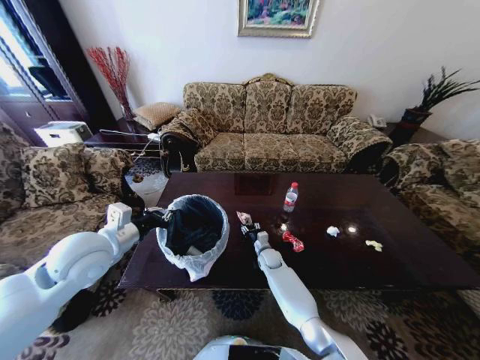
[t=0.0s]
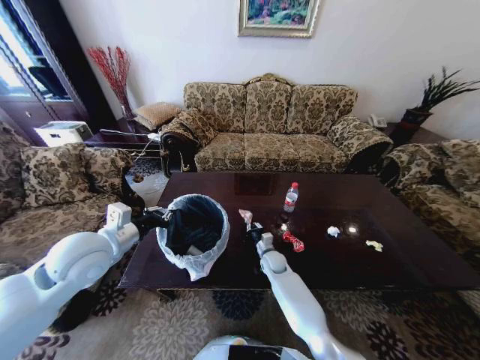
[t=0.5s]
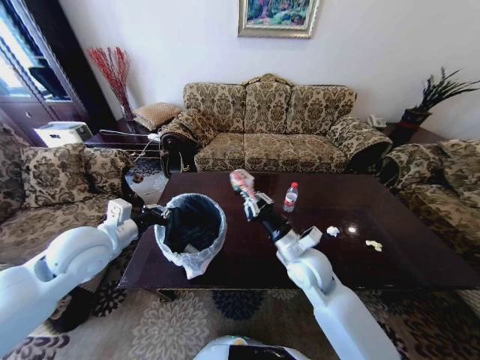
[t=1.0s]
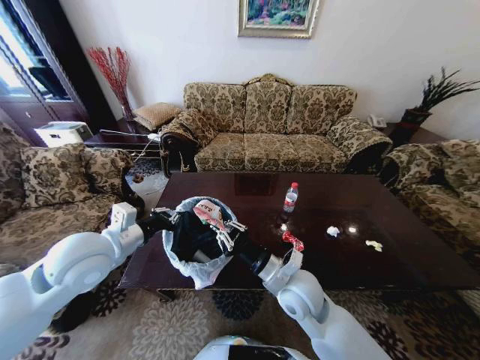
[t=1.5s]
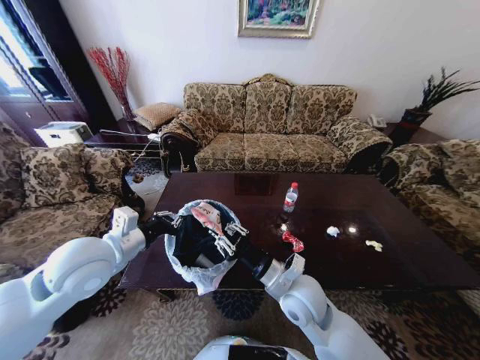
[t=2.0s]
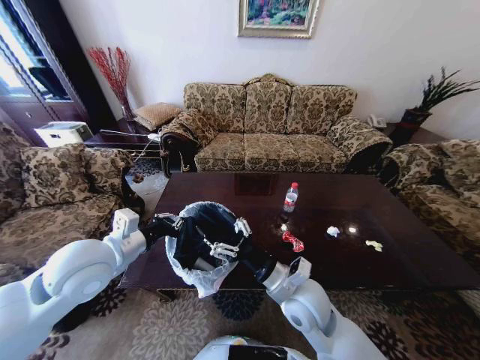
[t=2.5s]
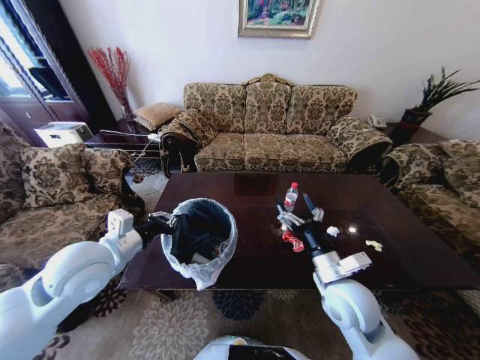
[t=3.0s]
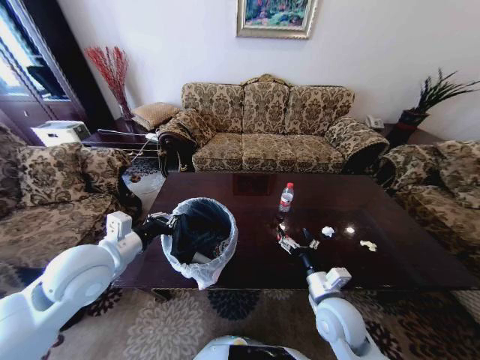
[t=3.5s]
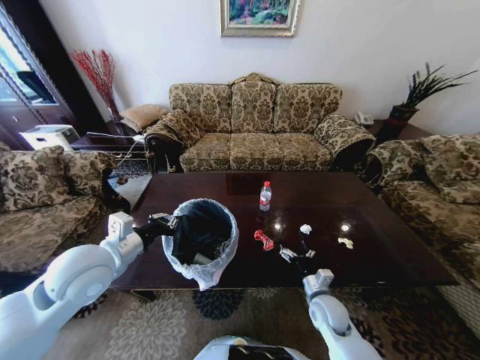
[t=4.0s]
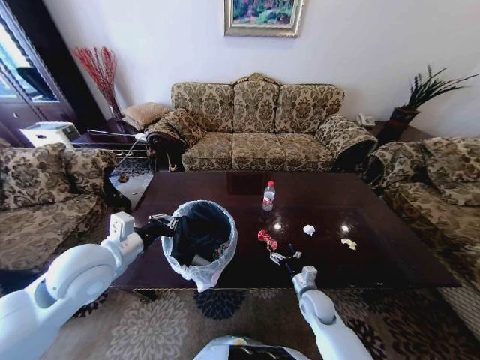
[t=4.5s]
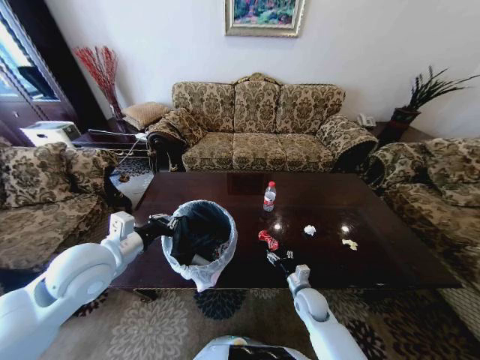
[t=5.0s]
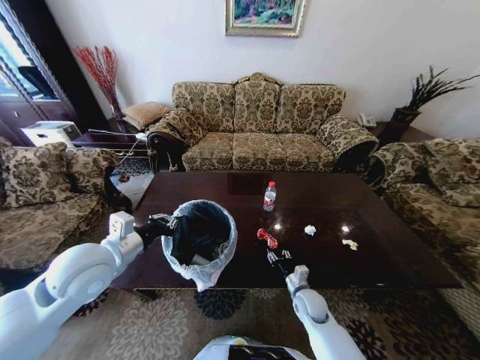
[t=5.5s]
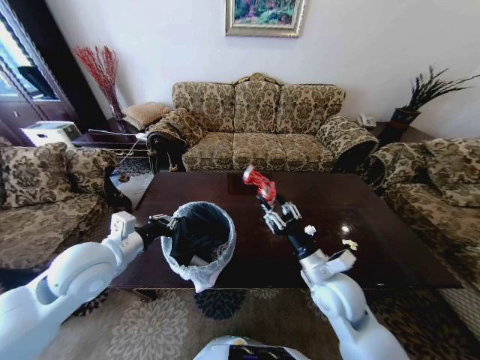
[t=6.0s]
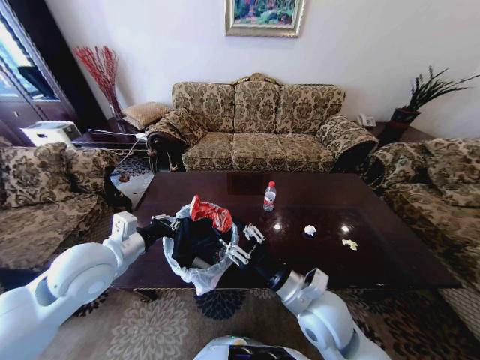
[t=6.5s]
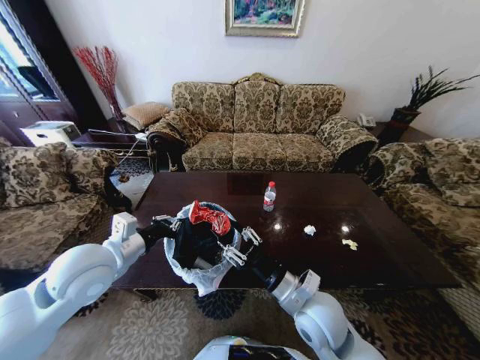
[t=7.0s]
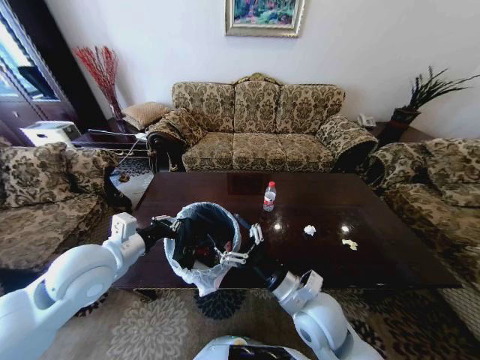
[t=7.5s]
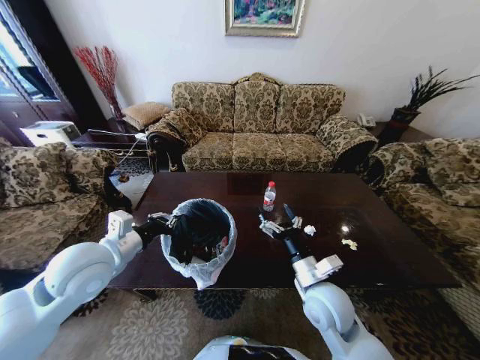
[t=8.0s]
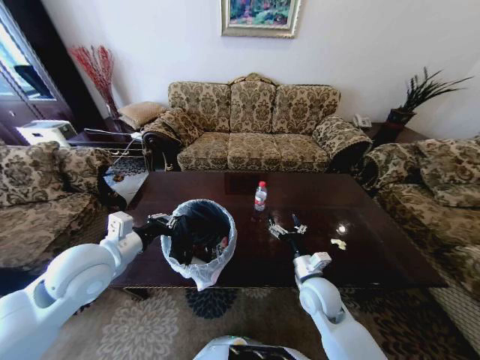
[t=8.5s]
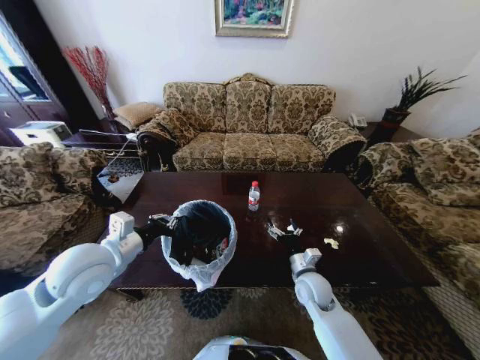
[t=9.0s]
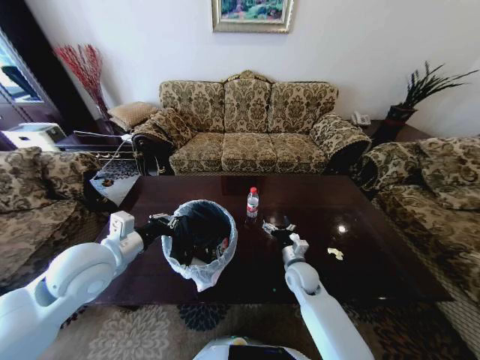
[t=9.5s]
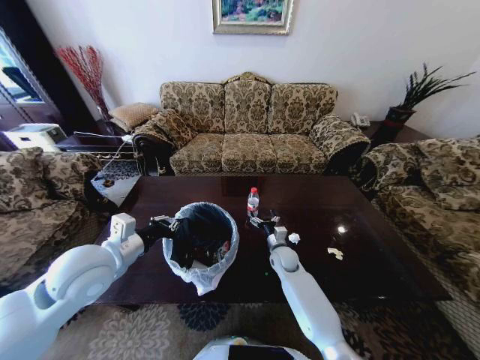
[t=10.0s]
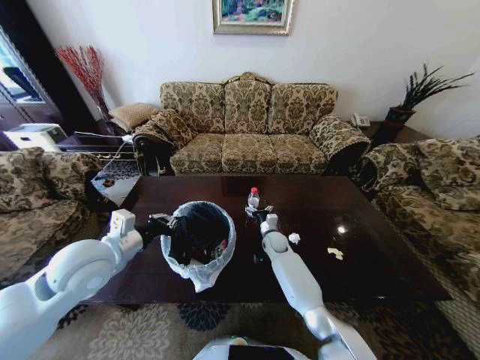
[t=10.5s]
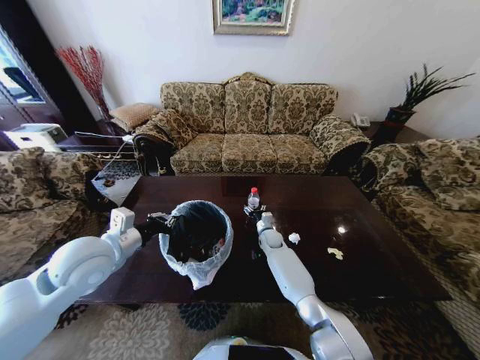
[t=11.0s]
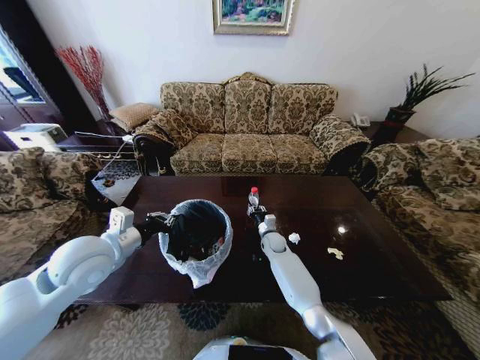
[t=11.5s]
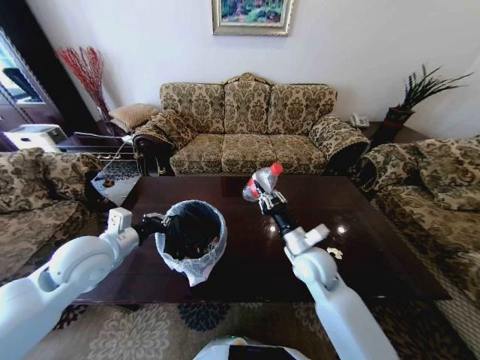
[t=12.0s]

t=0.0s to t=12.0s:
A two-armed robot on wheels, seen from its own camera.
Task of the whole recording: Move to the front of the table and place the trash on the table into the trash bin.
t=0.0s to t=2.0s: The right gripper travels upward and backward by about 30 cm.
t=2.0s to t=4.0s: The right gripper is displaced downward and to the right by roughly 20 cm, and opens.
t=4.0s to t=6.0s: The right gripper moves upward, about 15 cm, and closes its fingers.
t=6.0s to t=8.0s: The right gripper opens its fingers.
t=8.0s to t=10.0s: The right gripper is displaced forward and downward by some 25 cm.
t=10.0s to t=12.0s: The right gripper shifts roughly 20 cm upward and backward, and closes its fingers.

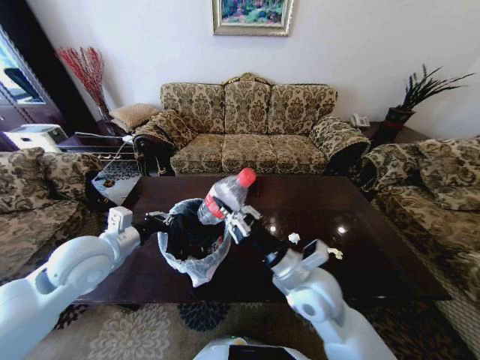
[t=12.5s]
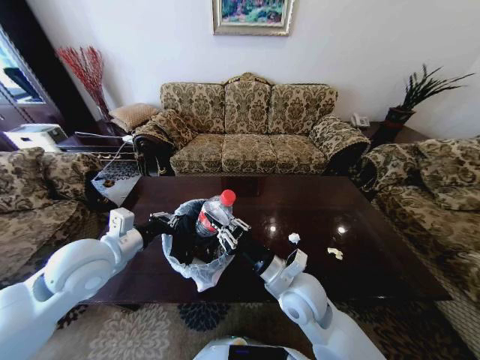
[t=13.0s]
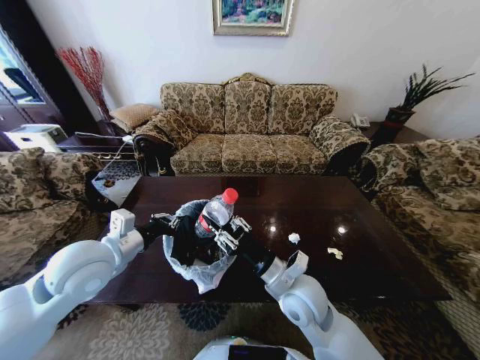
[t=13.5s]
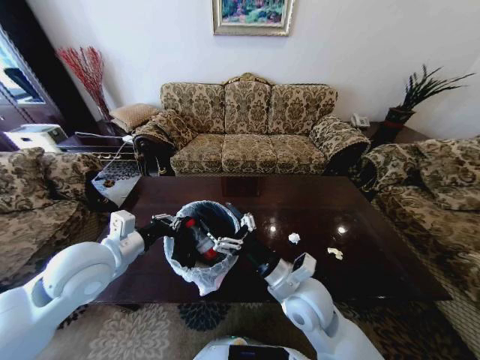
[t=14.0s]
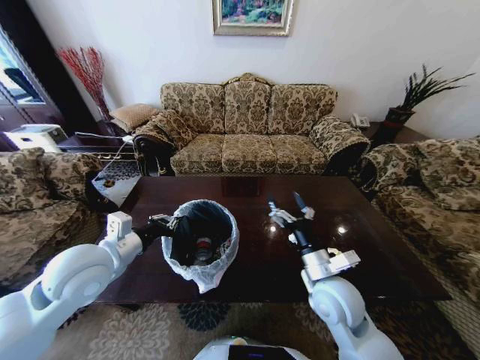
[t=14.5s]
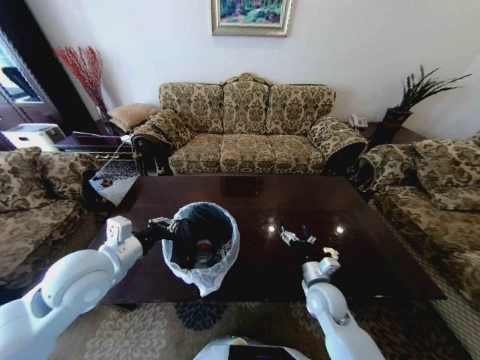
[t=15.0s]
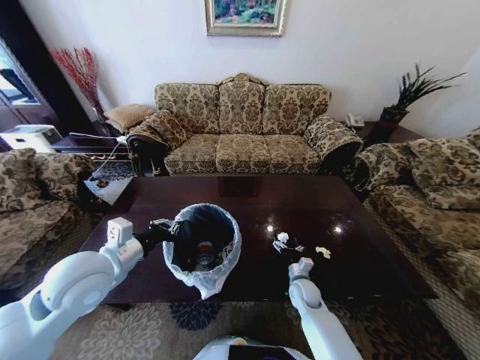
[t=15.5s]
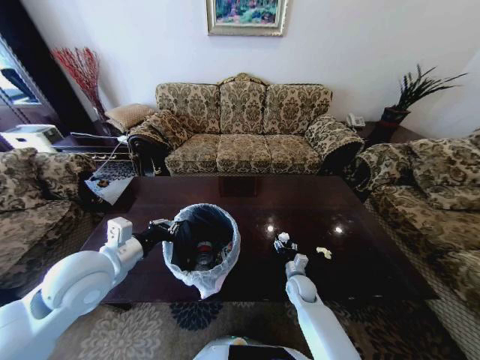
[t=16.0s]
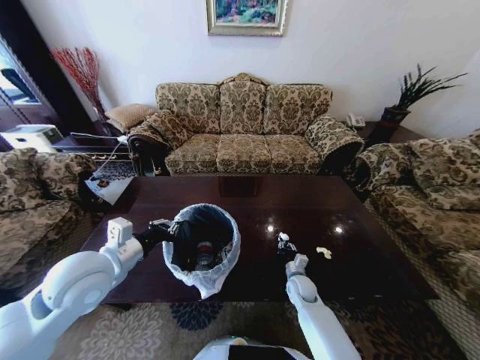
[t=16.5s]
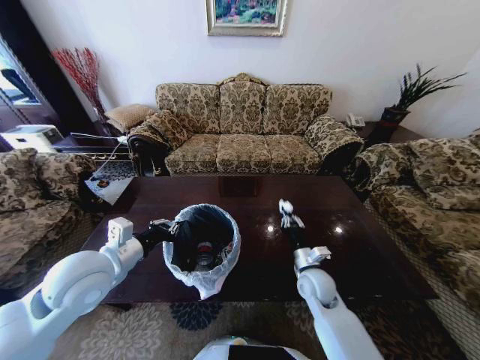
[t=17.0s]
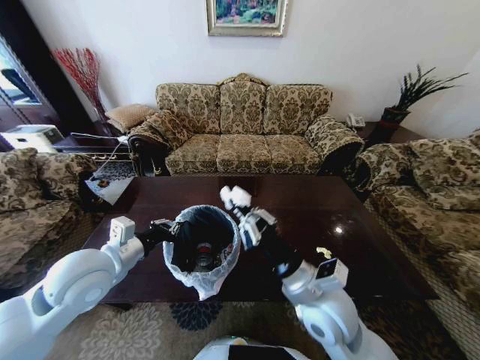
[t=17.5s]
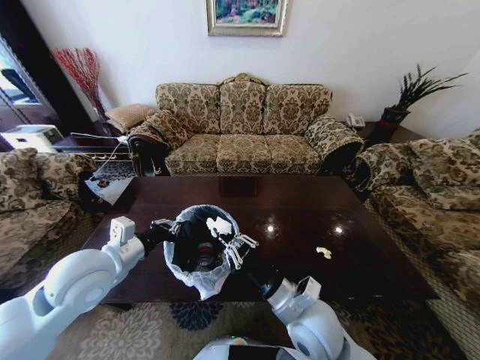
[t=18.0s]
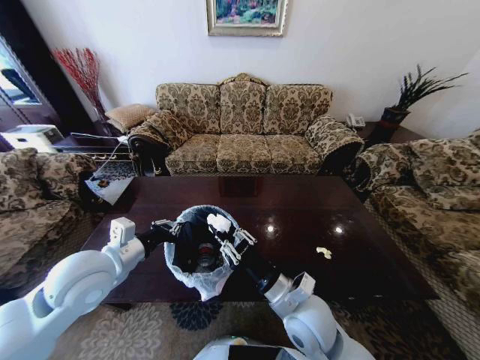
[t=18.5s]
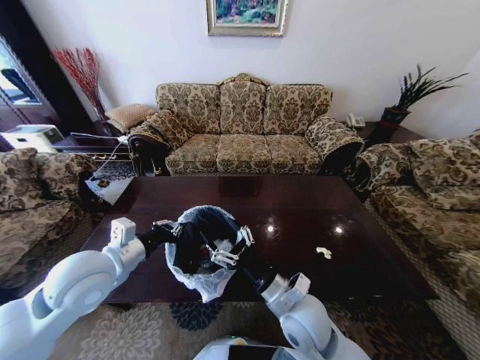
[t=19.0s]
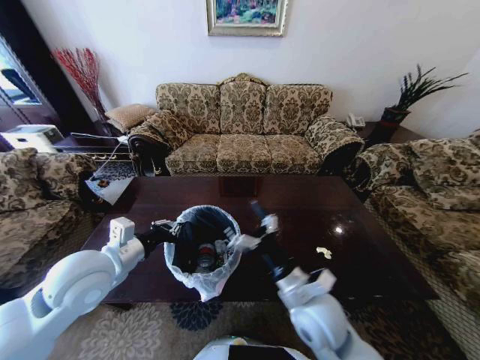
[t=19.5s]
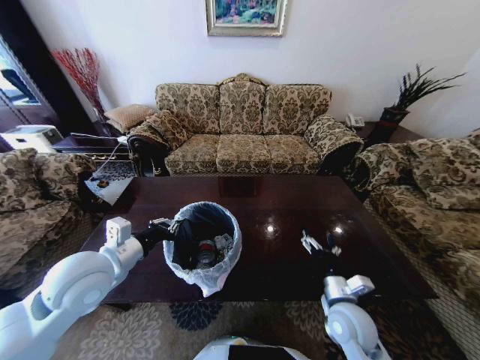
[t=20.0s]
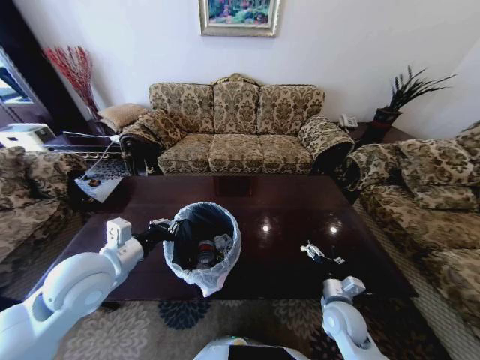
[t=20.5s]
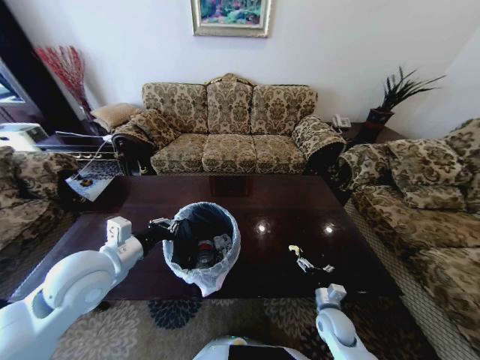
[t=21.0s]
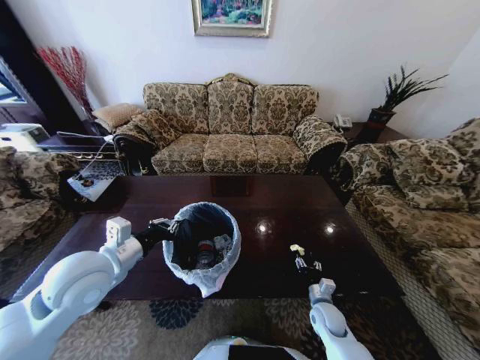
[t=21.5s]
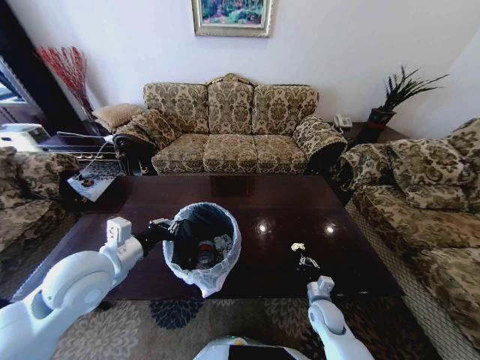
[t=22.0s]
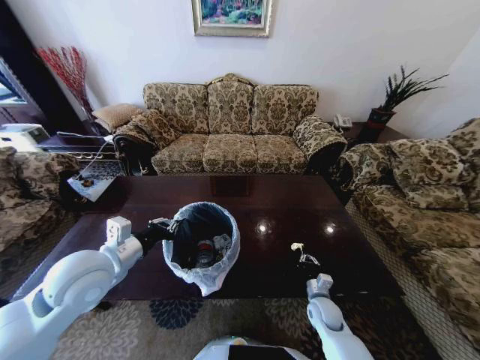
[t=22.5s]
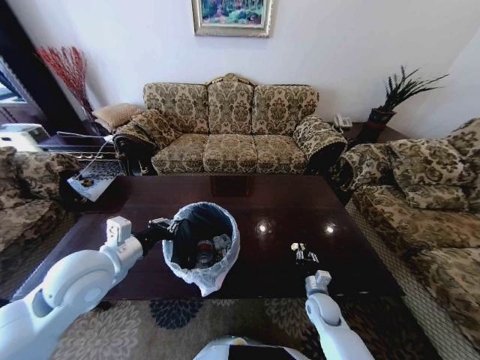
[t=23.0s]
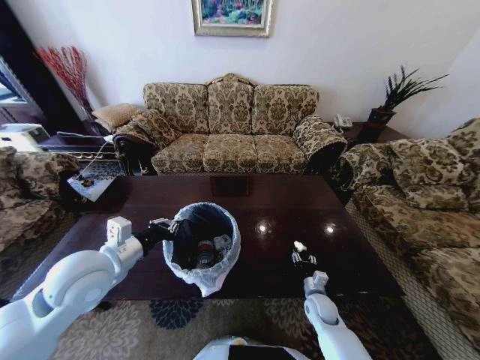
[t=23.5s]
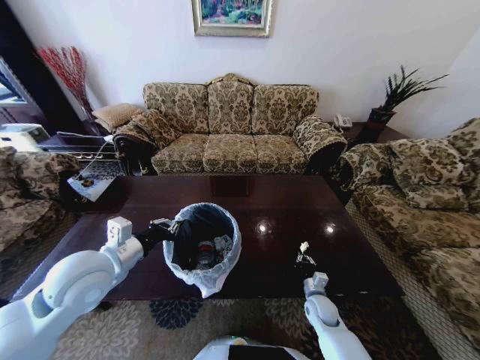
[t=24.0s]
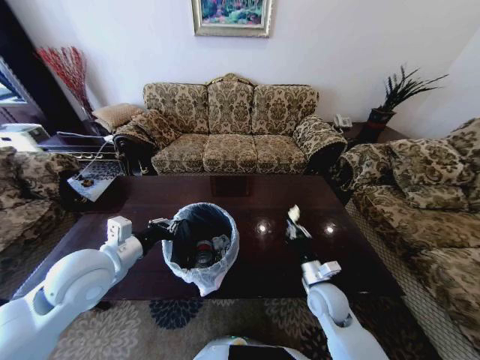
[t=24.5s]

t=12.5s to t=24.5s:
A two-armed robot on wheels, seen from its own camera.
Task of the whole recording: Move to the front of the table and place the trash on the table into the trash bin.
t=12.5s to t=14.5s: The right gripper heads to the right, covering roughly 5 cm, and opens up.
t=14.5s to t=16.5s: The right gripper shifts roughly 25 cm downward, and closes its fingers.
t=16.5s to t=18.5s: The right gripper heads upward and backward, covering some 25 cm.
t=18.5s to t=20.5s: The right gripper is displaced to the right and downward by approximately 20 cm, and opens up.
t=20.5s to t=22.5s: The right gripper travels downward by roughly 10 cm, and closes its fingers.
t=22.5s to t=24.5s: The right gripper shifts approximately 15 cm upward, and opens and closes again.

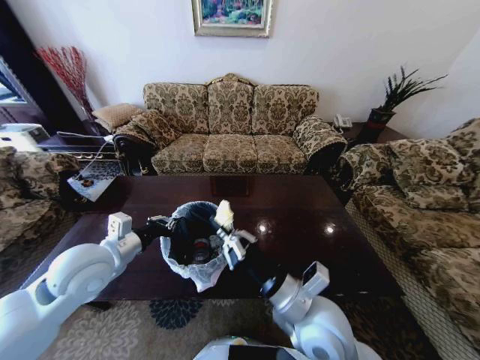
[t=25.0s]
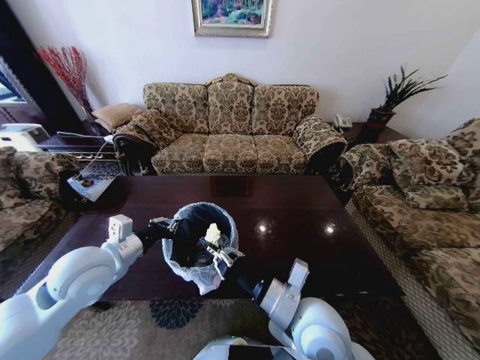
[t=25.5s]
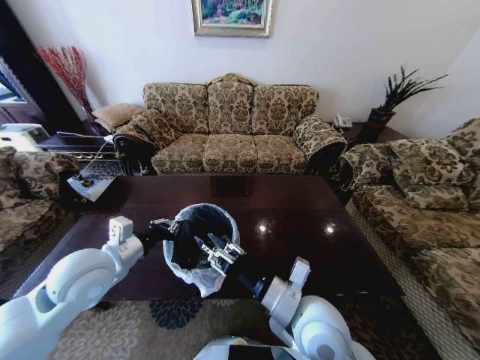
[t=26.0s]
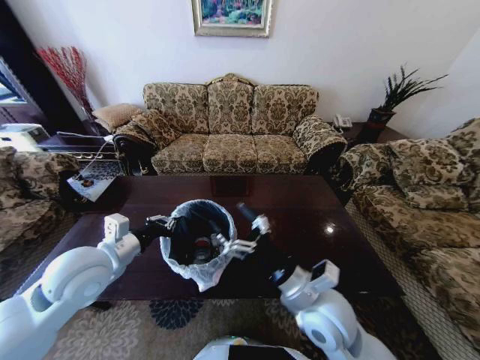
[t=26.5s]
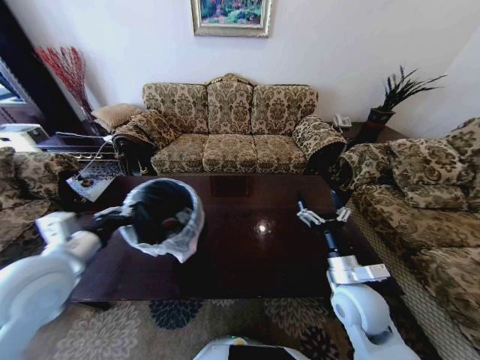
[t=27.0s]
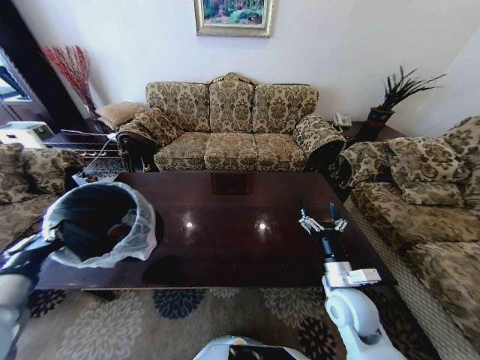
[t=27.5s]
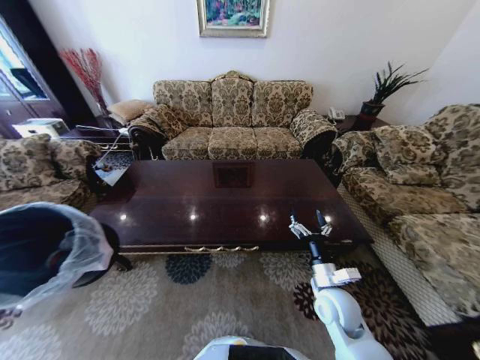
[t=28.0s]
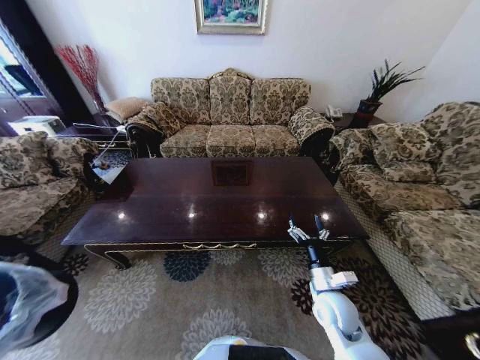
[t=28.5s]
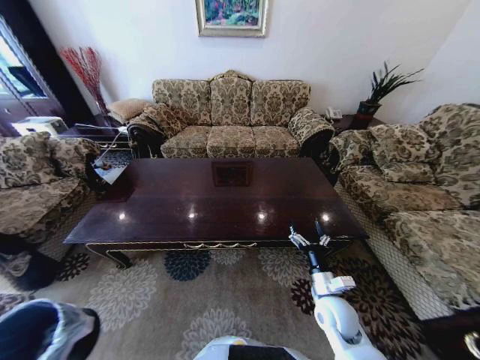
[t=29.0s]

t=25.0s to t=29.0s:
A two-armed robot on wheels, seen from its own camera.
Task of the whole recording: Move to the front of the table and place the trash on the table into the trash bin.
t=25.0s to t=27.0s: The right gripper shifts about 15 cm to the right and forward, and opens. The left gripper changes place by some 5 cm.
t=27.0s to t=29.0s: The right gripper shifts approximately 10 cm downward; the left gripper moves downward, backward and to the left, about 40 cm.
